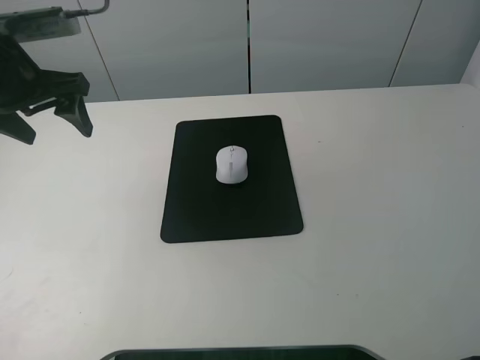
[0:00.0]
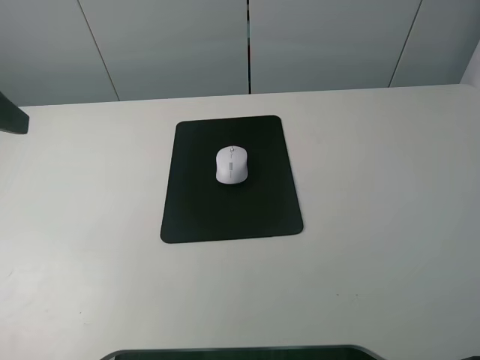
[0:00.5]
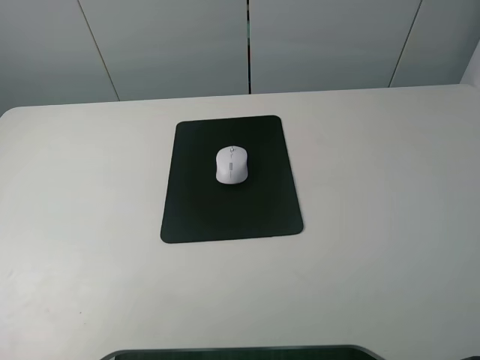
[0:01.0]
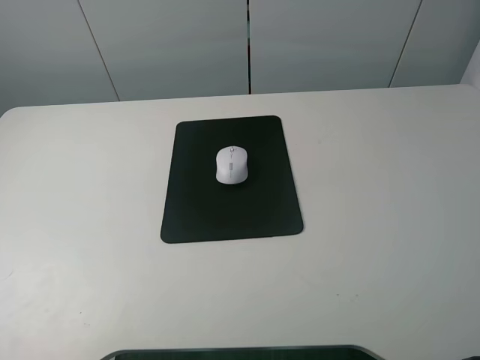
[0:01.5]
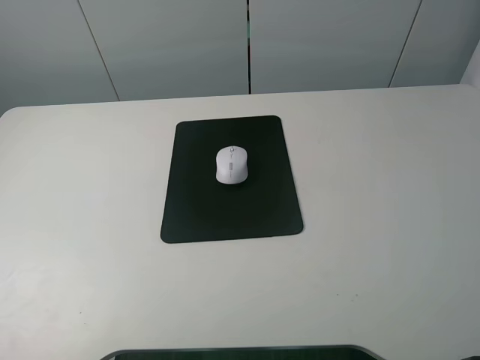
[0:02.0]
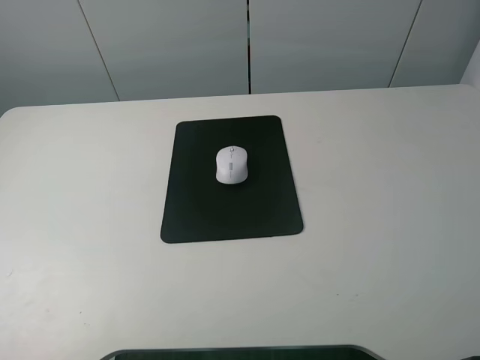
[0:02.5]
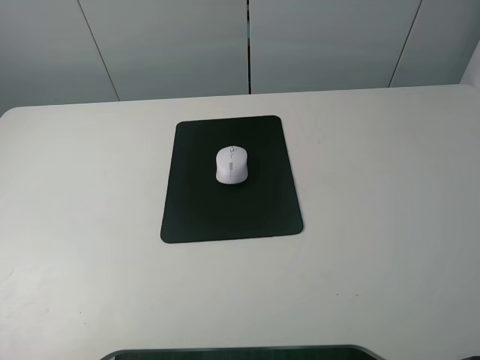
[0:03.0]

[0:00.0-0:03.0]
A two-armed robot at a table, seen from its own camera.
0:00.0 to 0:01.5: The left gripper travels backward by some 30 cm.
